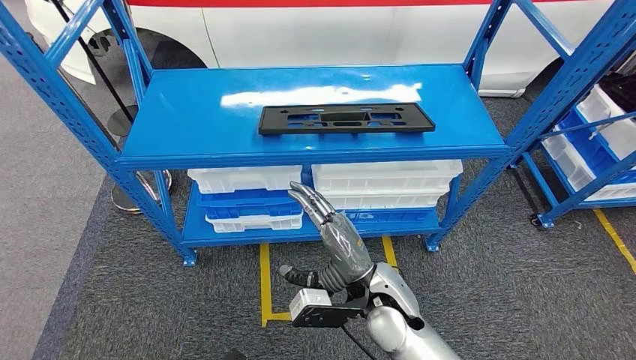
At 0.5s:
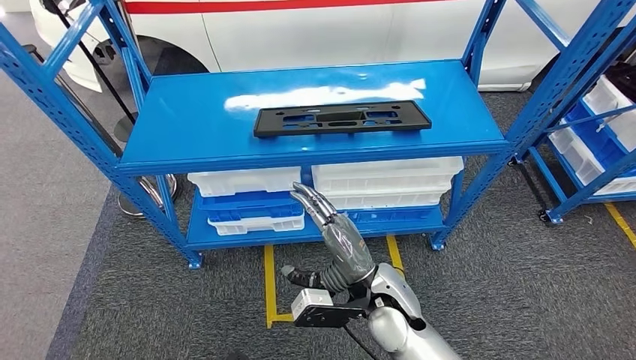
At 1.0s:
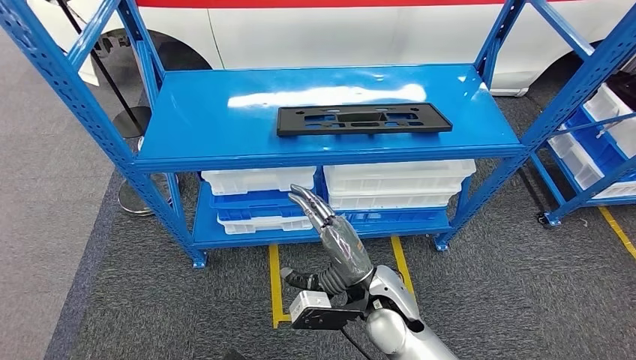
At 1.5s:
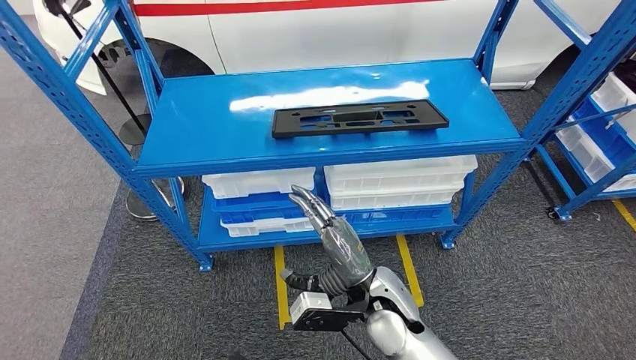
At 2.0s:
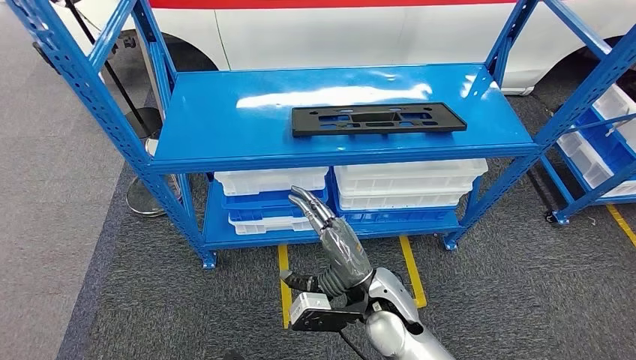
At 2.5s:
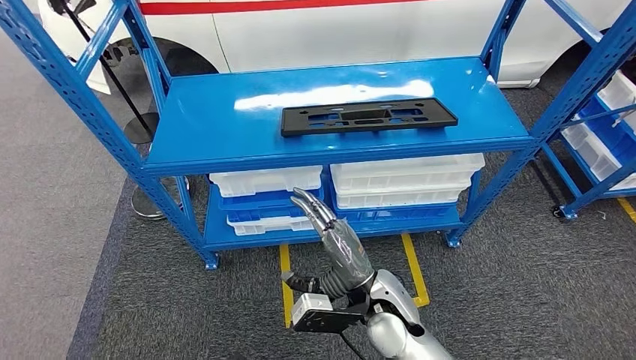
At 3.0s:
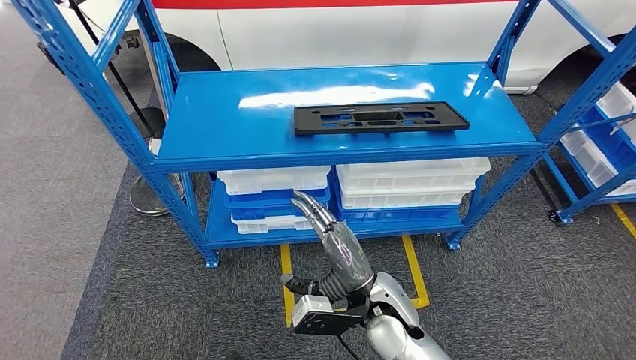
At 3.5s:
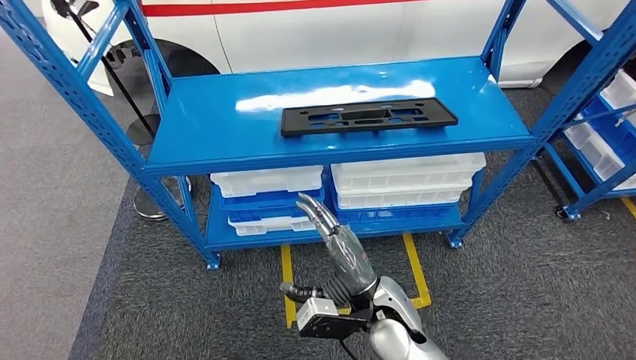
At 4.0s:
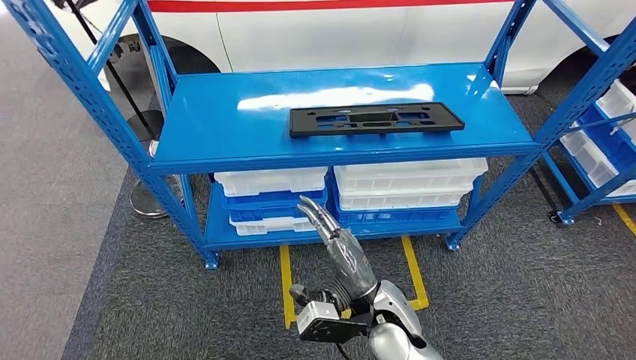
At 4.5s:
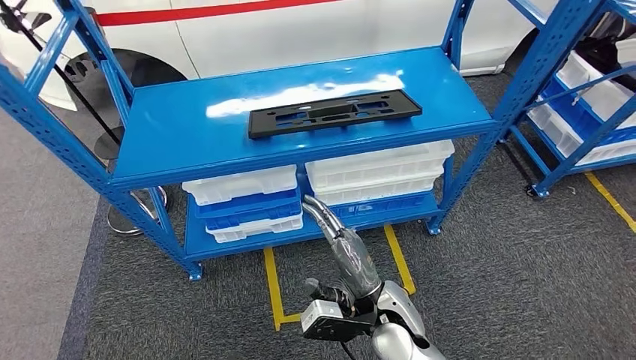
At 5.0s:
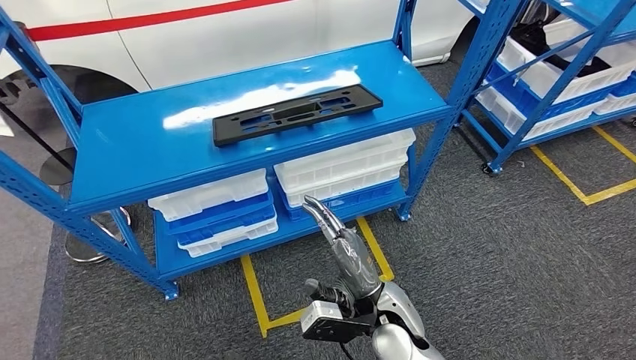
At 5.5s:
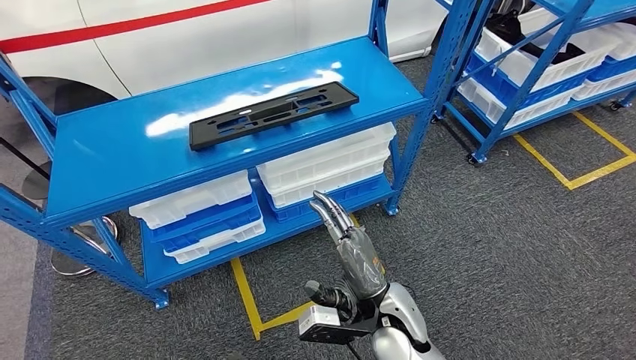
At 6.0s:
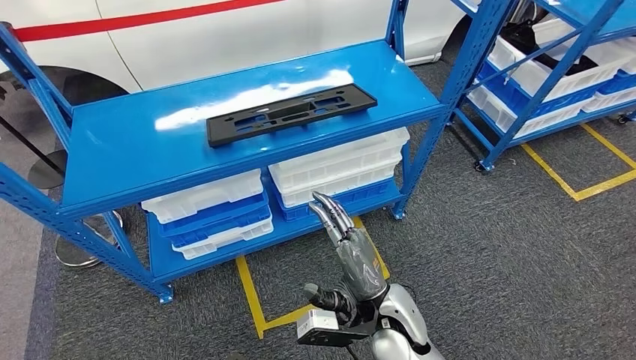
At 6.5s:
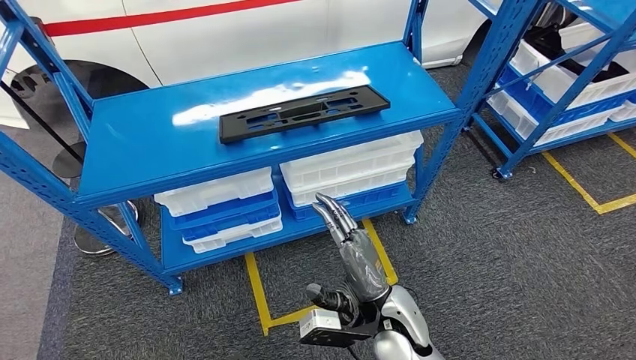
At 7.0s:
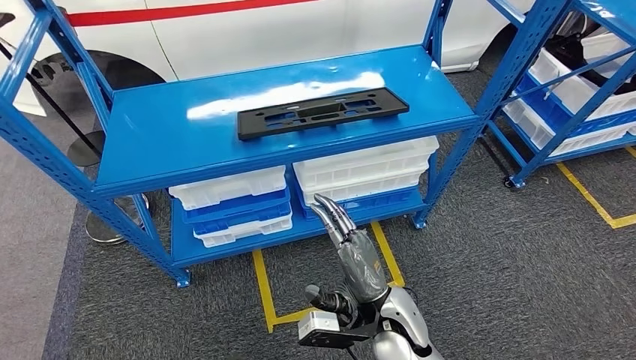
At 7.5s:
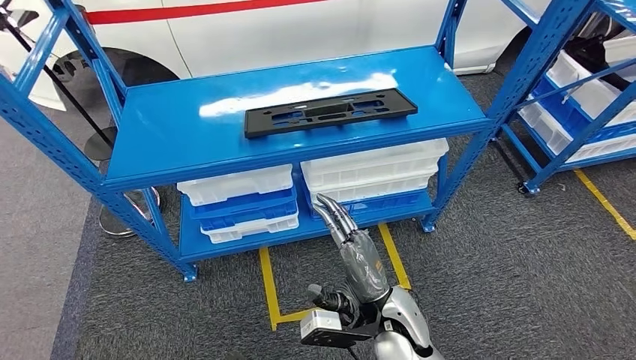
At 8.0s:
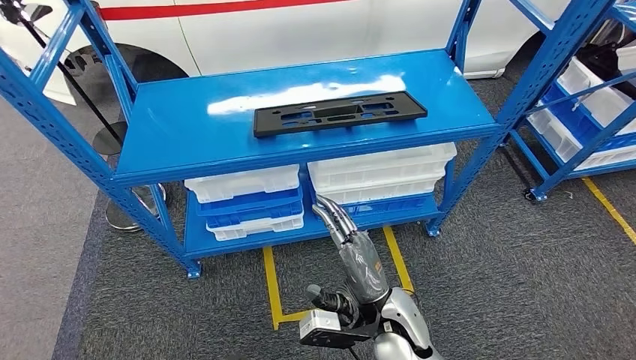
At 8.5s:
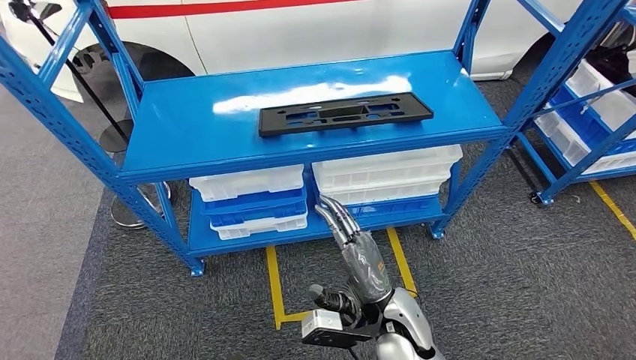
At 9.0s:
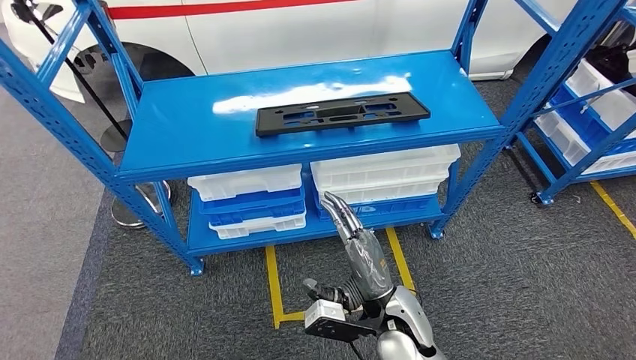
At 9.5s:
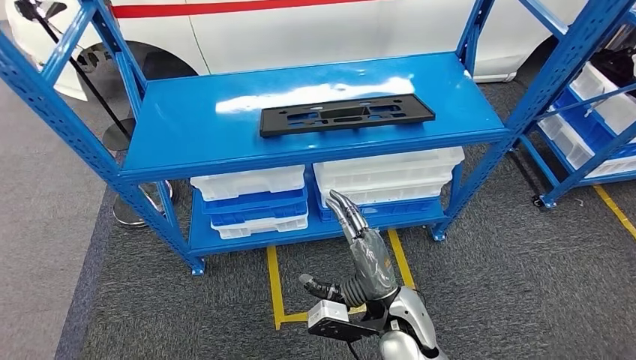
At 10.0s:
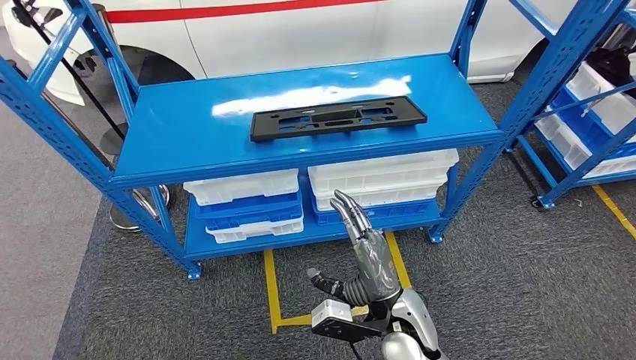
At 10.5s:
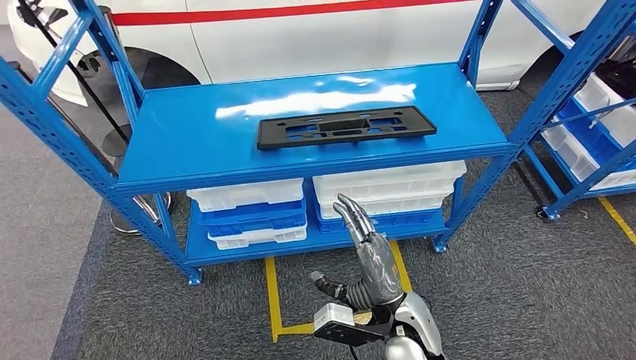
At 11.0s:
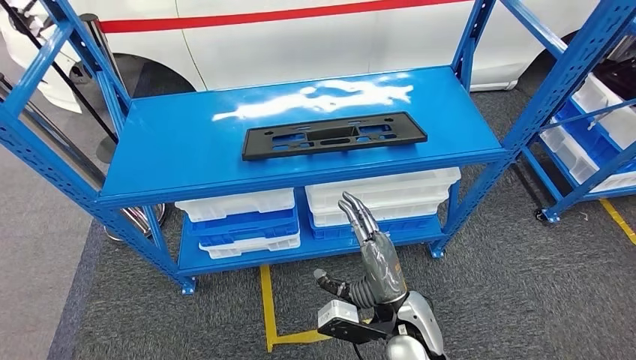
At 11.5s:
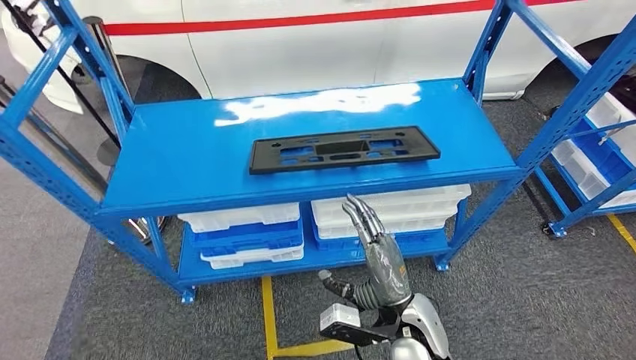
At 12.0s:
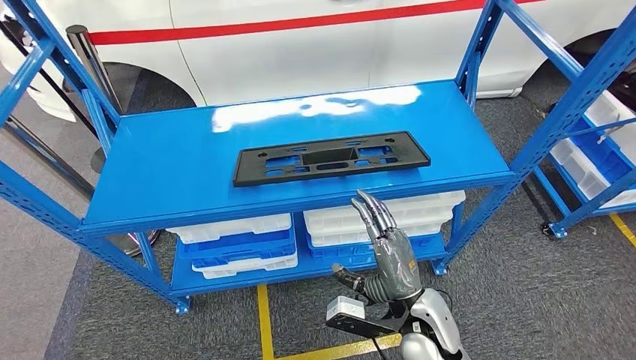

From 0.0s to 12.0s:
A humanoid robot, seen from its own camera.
From 2.0s to 4.0s: There are only small adjustments of the hands.

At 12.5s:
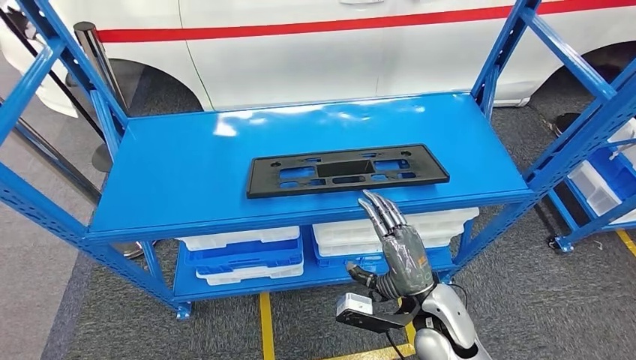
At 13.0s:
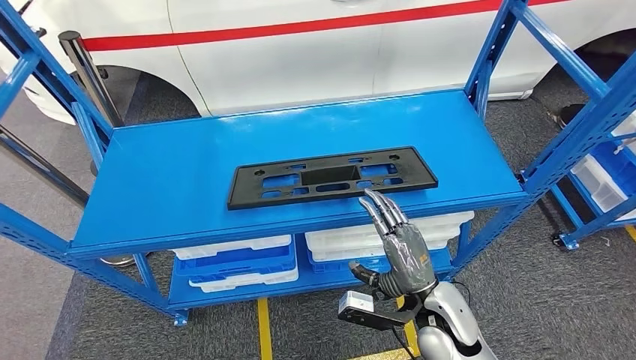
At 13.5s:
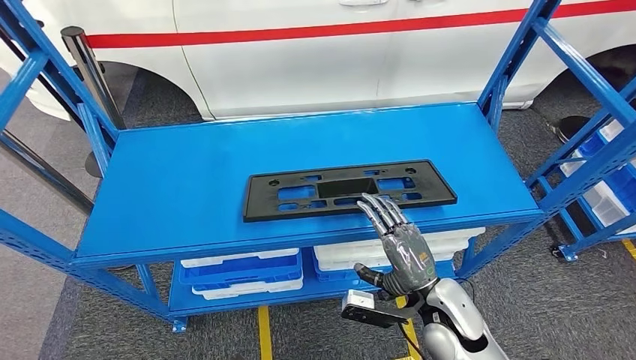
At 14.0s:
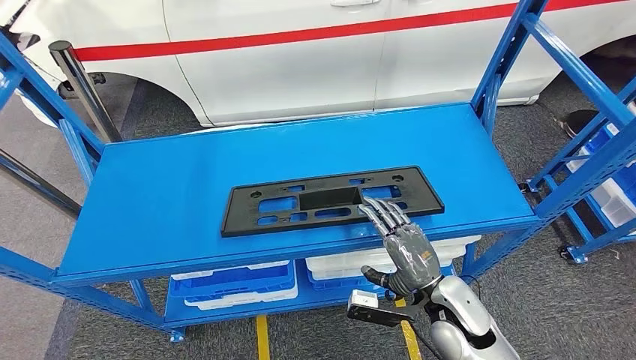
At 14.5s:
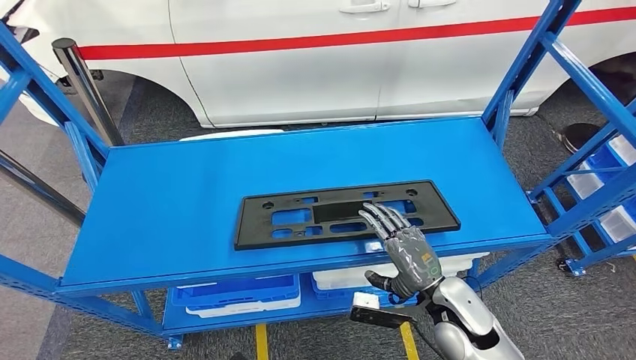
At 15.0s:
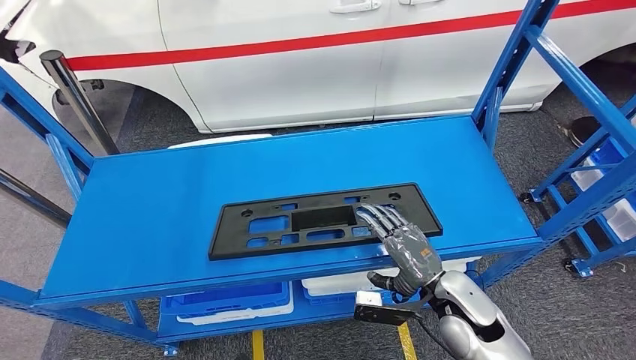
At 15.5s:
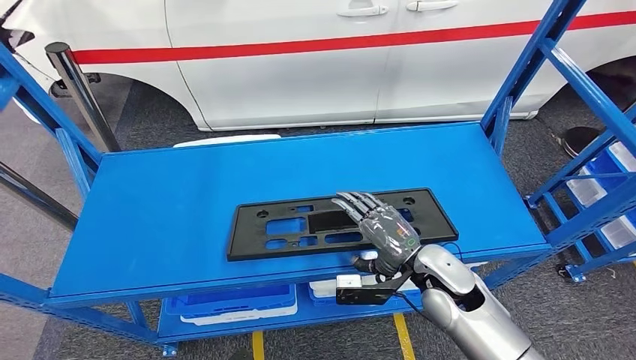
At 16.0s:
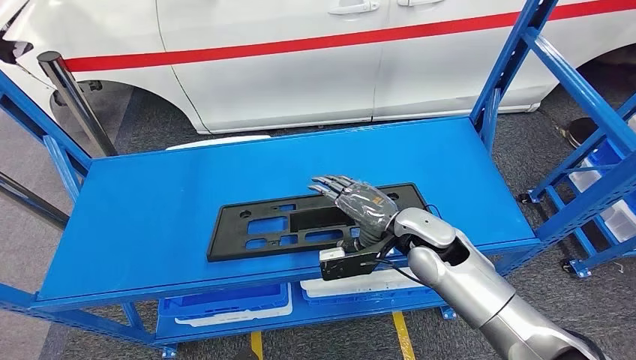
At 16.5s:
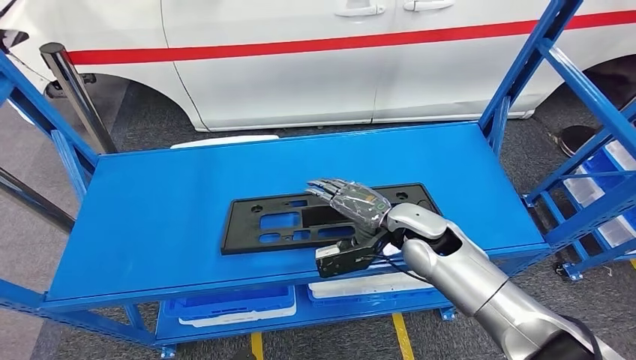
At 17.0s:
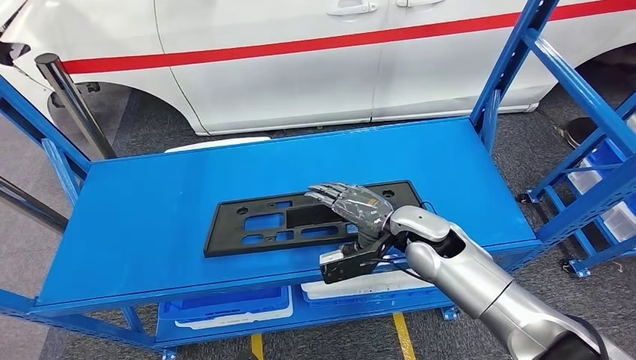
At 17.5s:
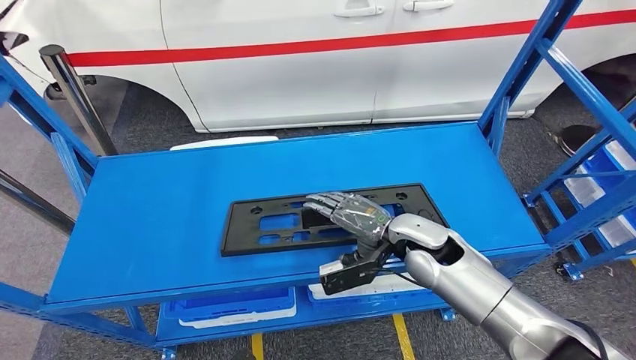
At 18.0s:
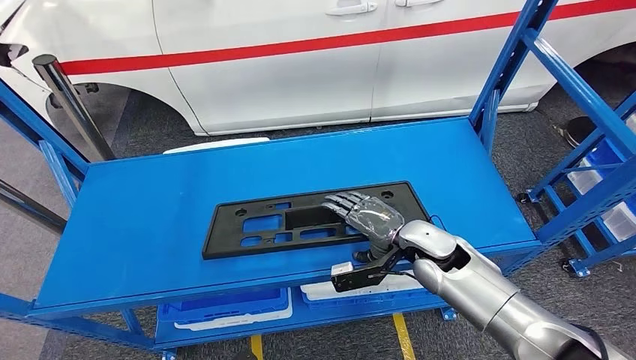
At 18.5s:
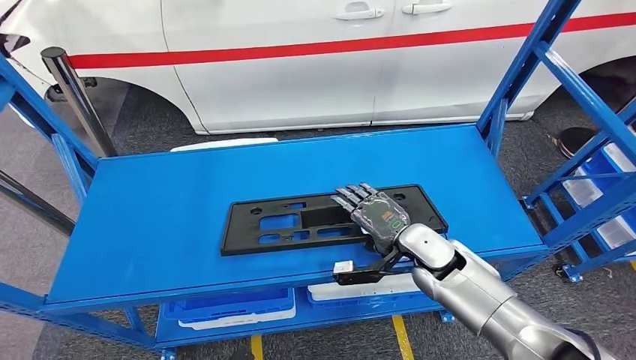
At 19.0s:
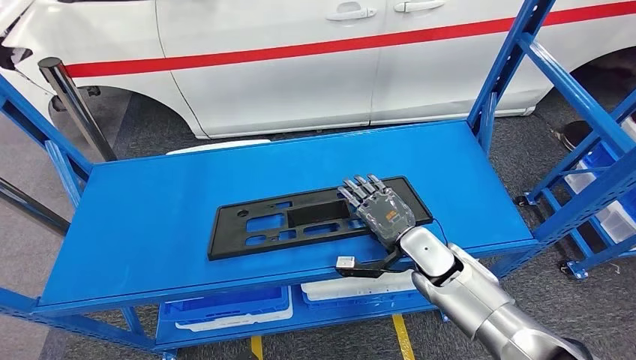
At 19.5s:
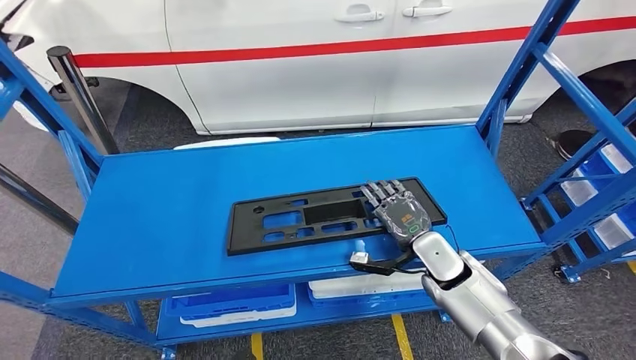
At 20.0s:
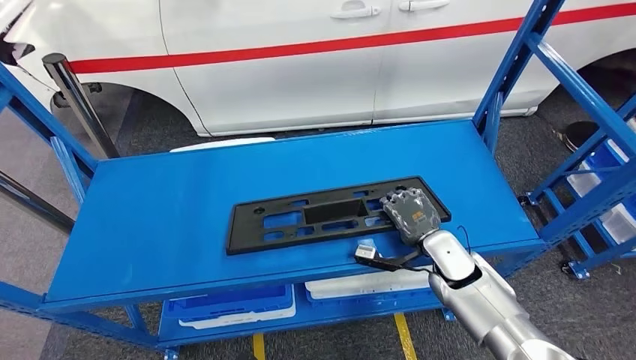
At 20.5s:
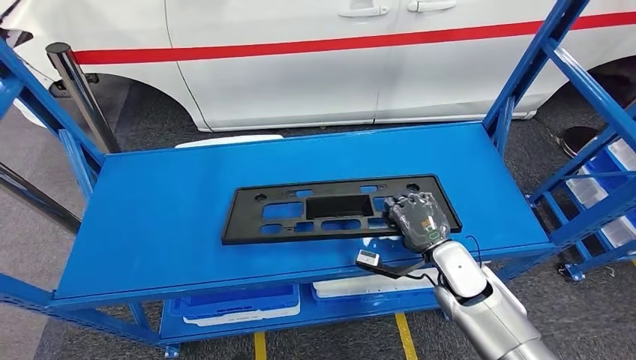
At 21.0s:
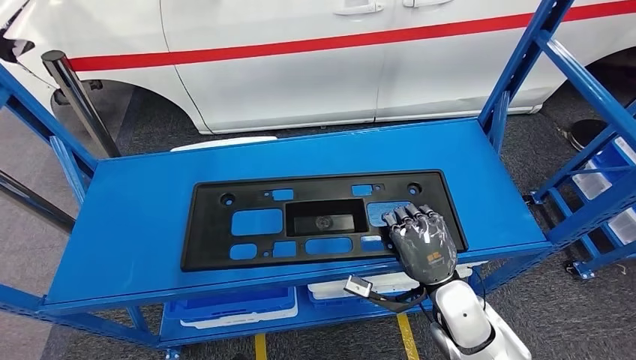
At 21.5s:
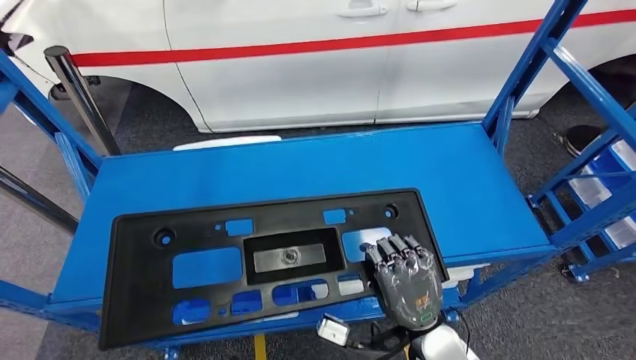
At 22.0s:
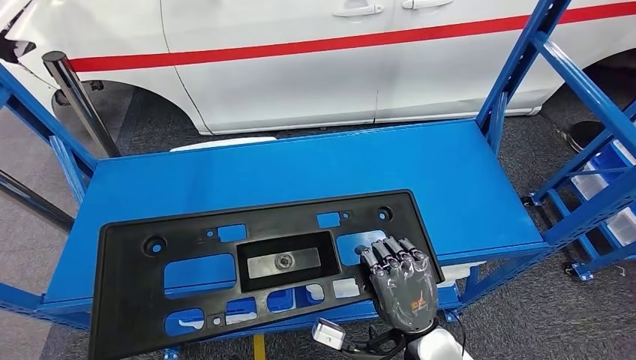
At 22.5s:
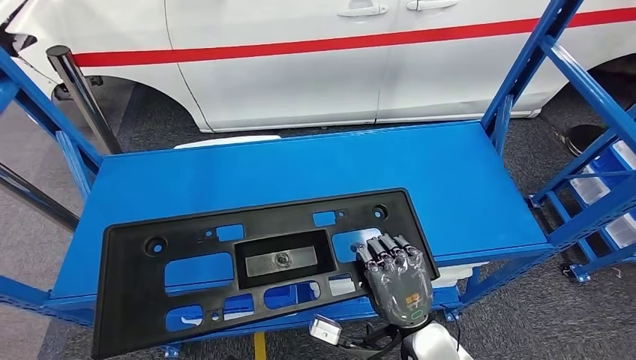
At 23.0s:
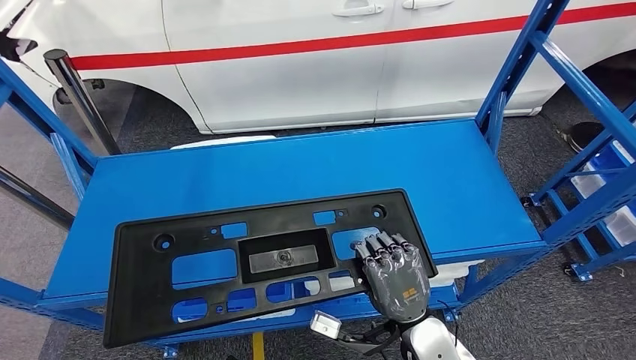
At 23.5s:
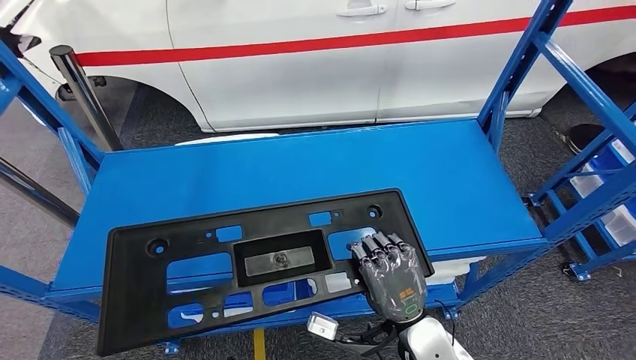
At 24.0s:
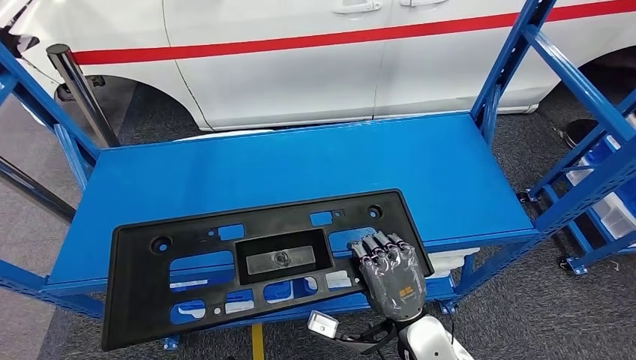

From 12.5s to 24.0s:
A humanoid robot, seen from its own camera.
Step, from 12.5s to 21.5s: Pick up the large material from the shelf.
From 16.5s to 18.5s: The right hand travels downward by roughly 5 cm.
